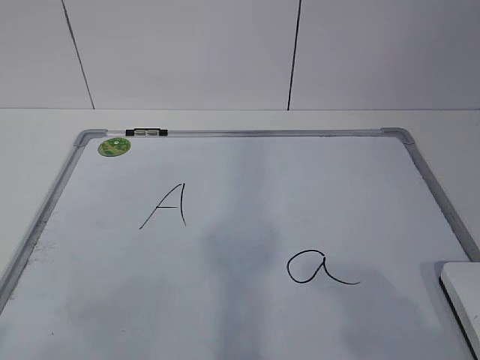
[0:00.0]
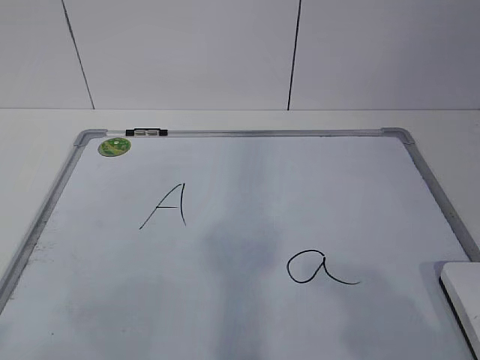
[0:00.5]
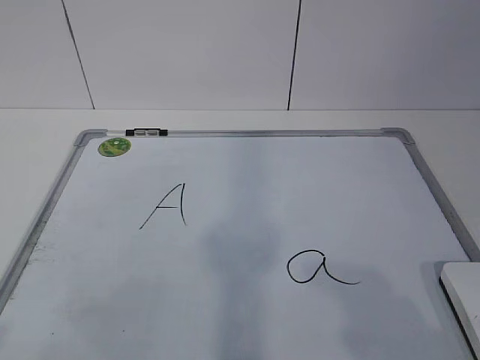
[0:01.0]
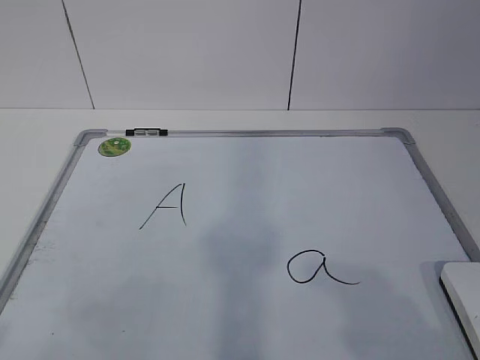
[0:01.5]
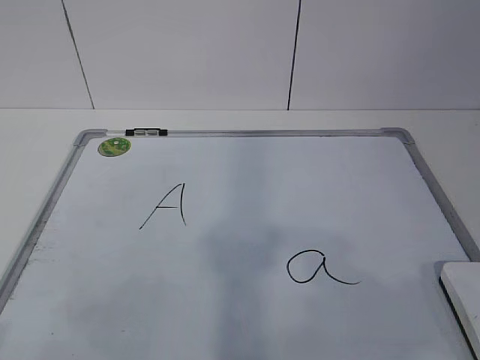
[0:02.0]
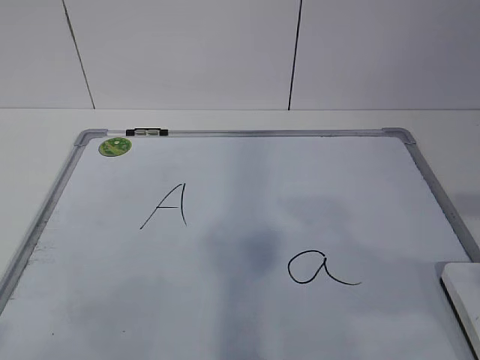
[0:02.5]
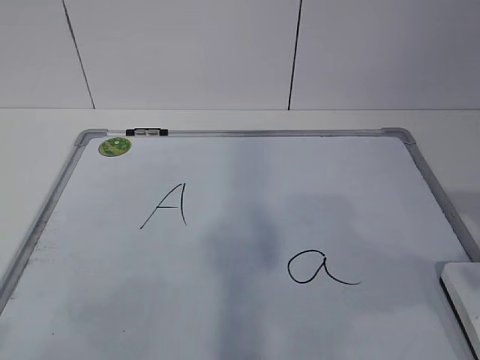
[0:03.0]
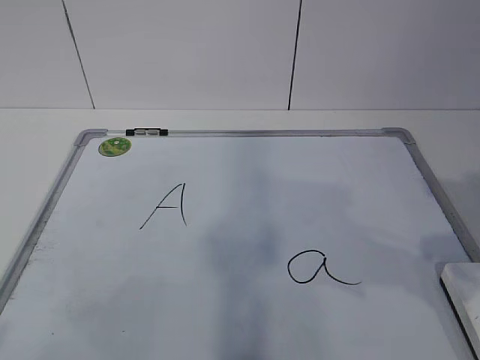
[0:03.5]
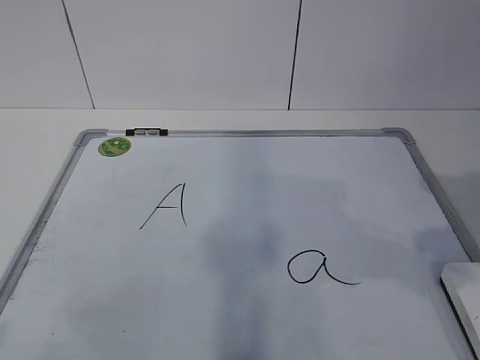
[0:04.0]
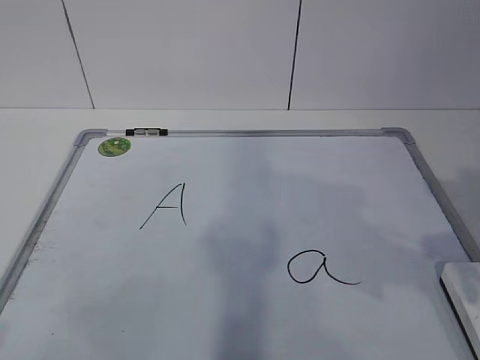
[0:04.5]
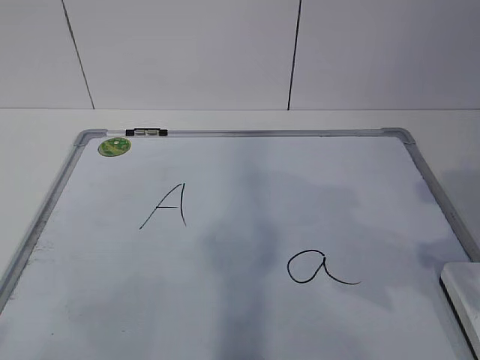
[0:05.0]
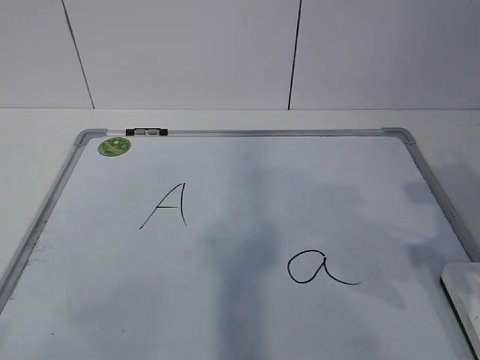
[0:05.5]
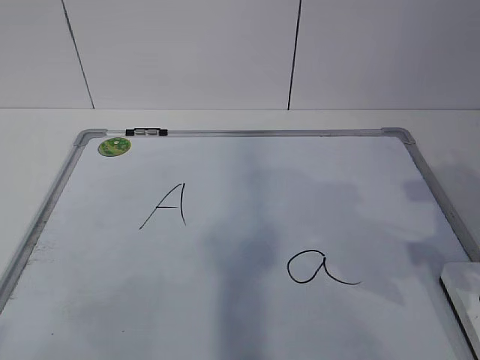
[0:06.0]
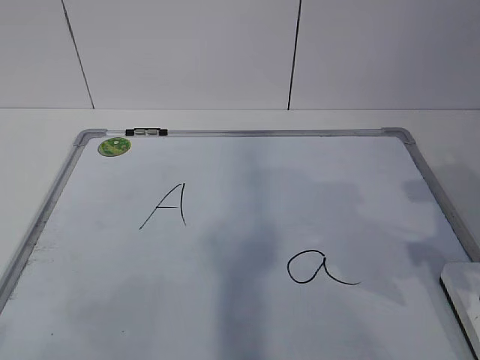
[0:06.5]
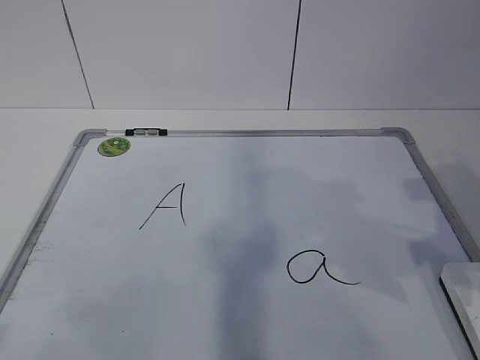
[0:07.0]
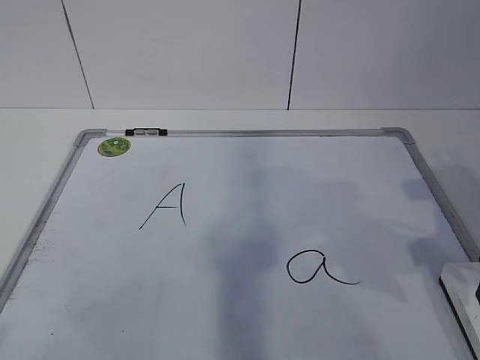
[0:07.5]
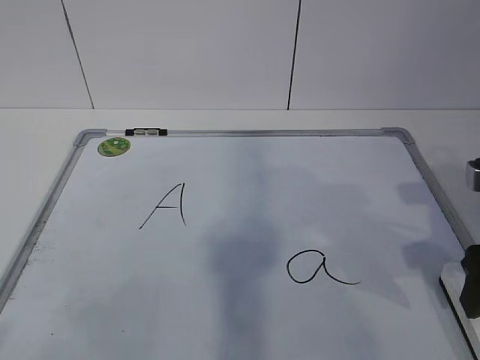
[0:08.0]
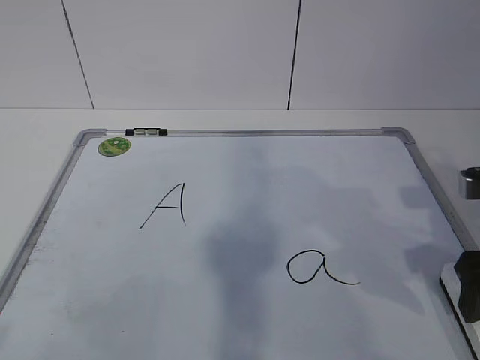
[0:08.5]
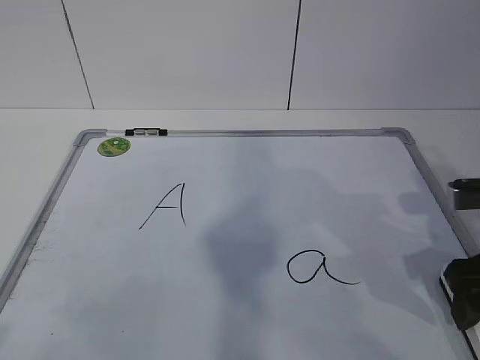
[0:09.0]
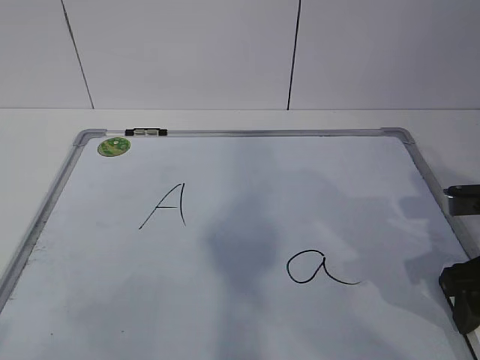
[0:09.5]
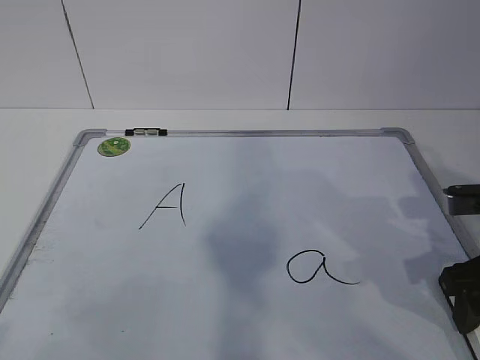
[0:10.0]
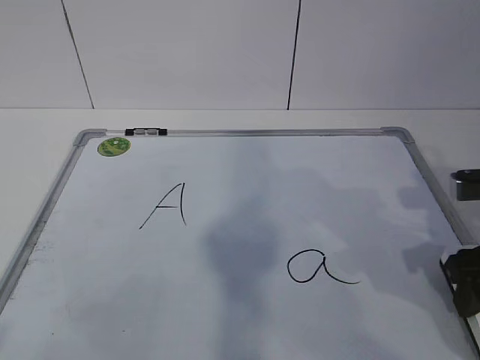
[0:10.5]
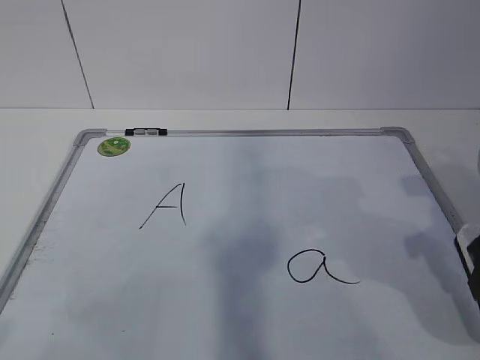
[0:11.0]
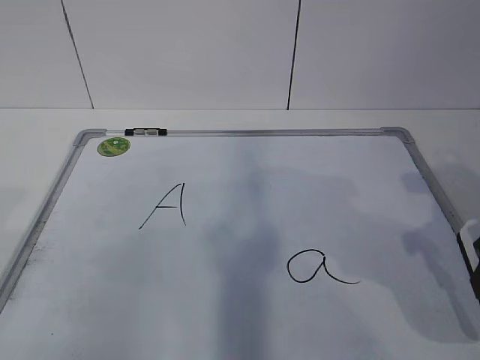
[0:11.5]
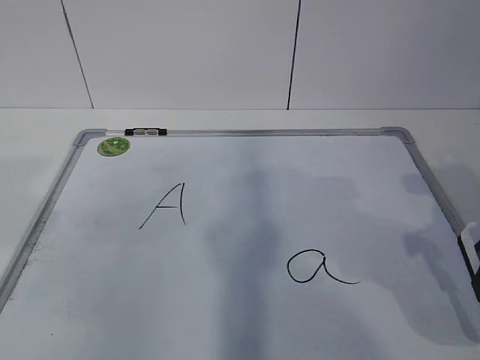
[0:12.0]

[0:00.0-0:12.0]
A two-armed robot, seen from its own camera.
Task of the whole recording: pick up the eraser on the blackboard and erase the letter "a".
Step, 0:08.0 to 0:11.5: Hold the drawing board steady with your left hand.
0:02.0 to 0:04.0: The right gripper heads forward, covering about 15 cm.
0:06.0 to 0:08.0: The right gripper opens.
0:08.0 to 0:10.0: The right gripper closes its fingers.
0:10.0 to 0:12.0: The right gripper goes approximately 5 cm upward.

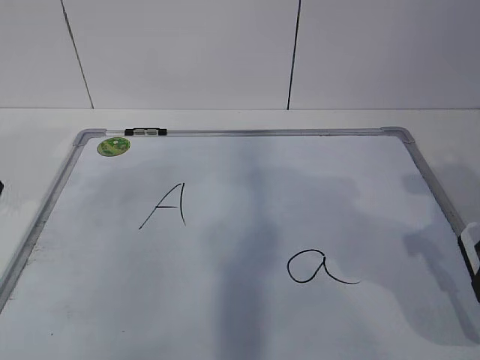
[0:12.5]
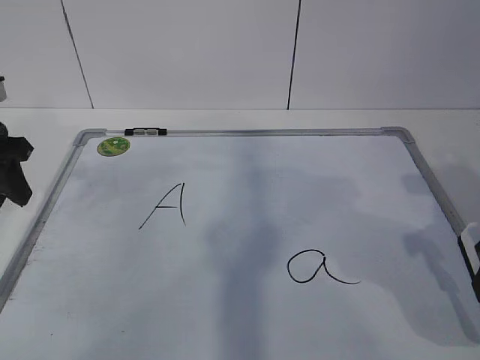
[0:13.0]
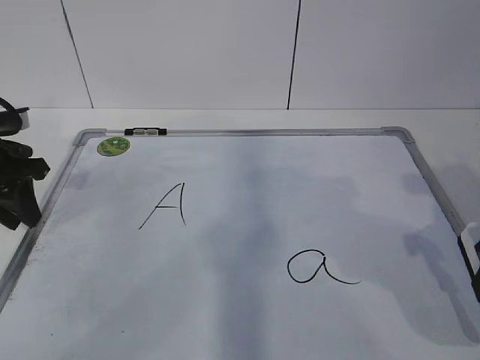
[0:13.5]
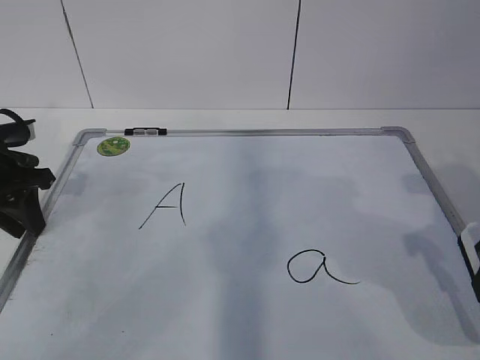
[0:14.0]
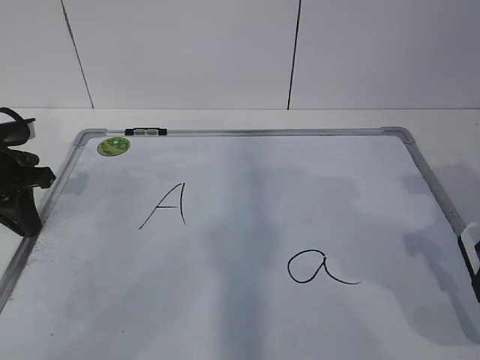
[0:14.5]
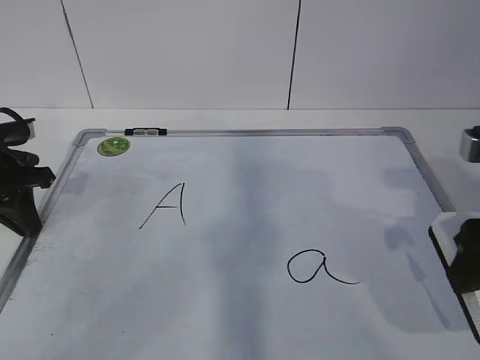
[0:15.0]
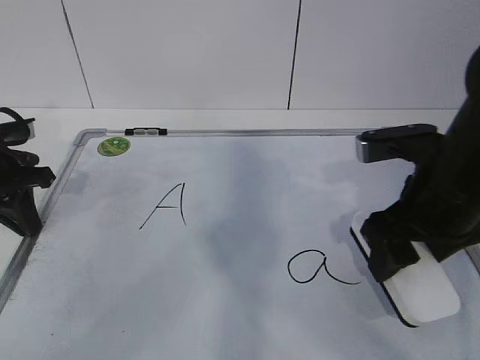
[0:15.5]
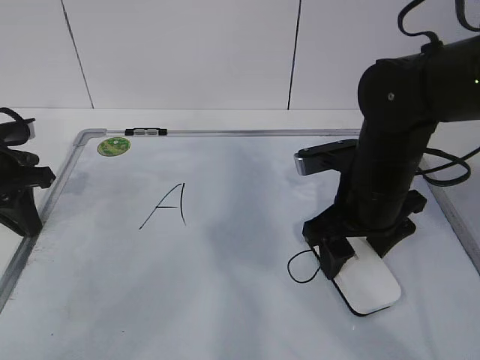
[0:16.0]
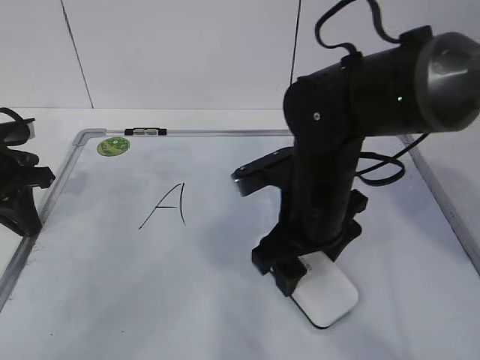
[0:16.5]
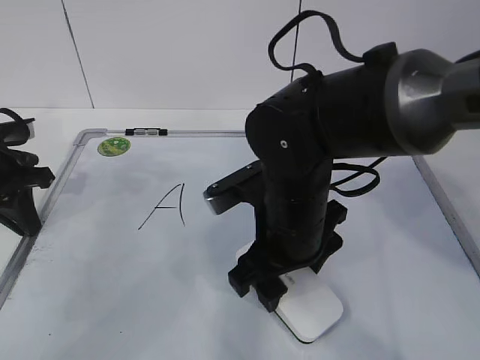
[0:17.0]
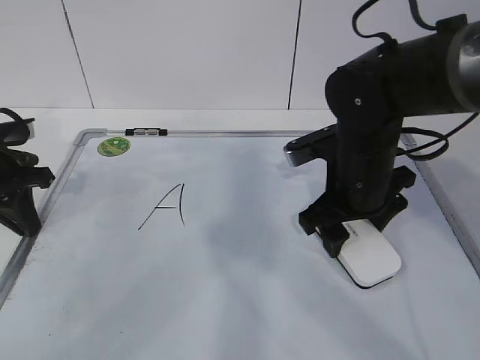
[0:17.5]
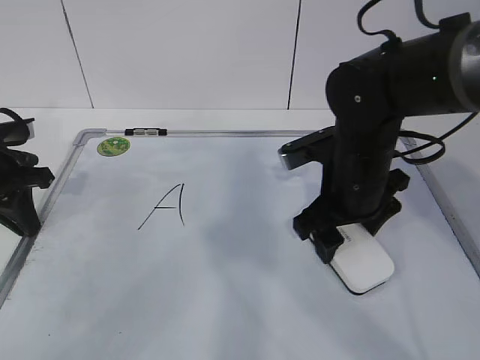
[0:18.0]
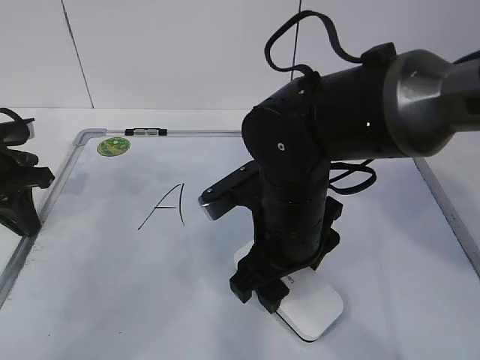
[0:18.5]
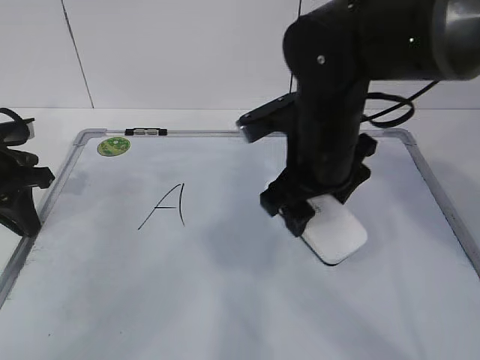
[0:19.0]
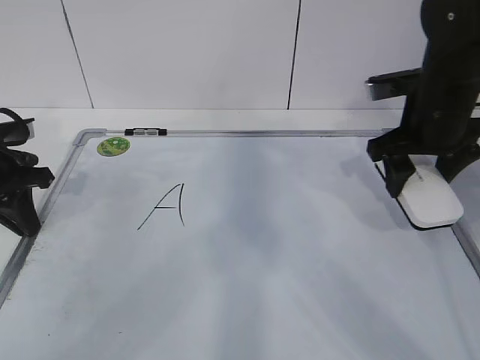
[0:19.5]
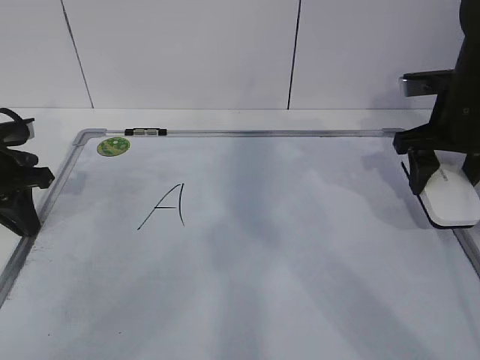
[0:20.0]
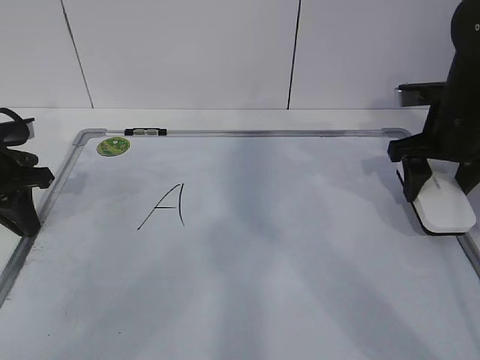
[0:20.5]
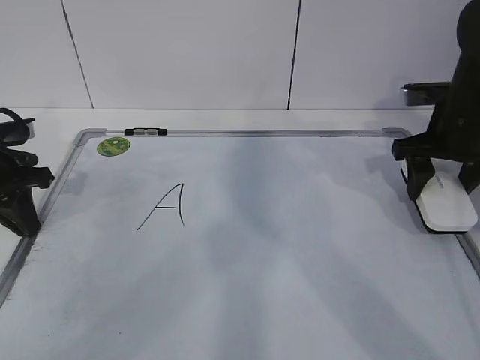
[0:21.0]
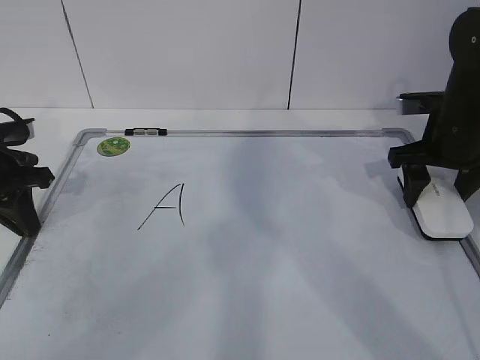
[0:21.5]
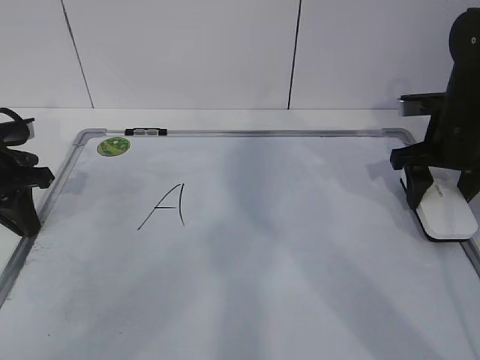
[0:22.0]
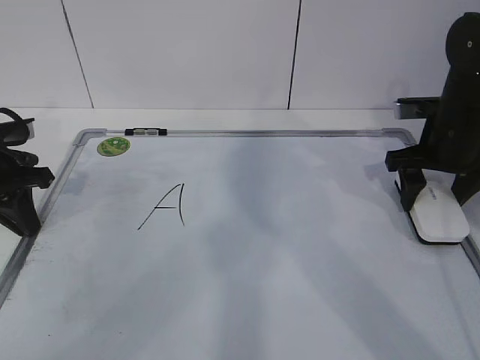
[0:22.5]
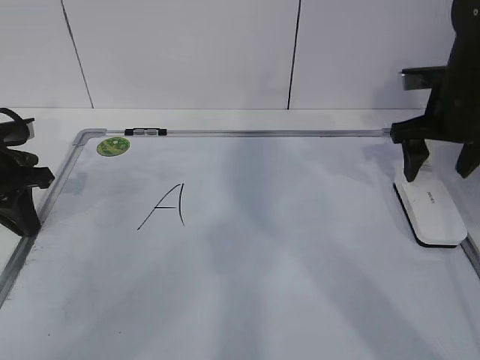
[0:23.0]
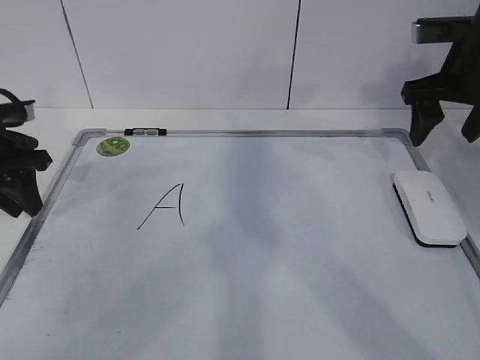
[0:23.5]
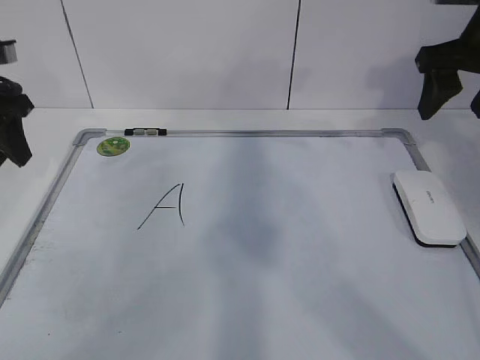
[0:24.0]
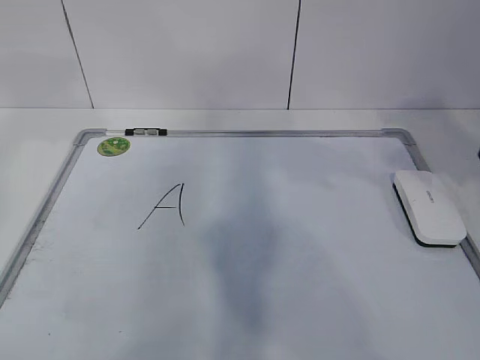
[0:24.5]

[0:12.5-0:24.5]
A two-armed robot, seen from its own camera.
Task of the whole recording: pick up the eraser on the blackboard and erase the letter "a".
Step, 0:15.5 to 0:18.5: Put down the eraser with your right hand.
0:12.5 to 0:14.5: The left gripper goes some 15 cm downward and forward, and closes.
0:14.5 to 0:16.5: The right gripper moves to the left and forward, some 20 cm.
0:16.5 to 0:18.5: The right gripper travels to the right and back again, roughly 5 cm each way.
0:18.5 to 0:20.5: The right gripper shifts some 25 cm to the right and forward.
0:20.5 to 0:22.5: The grippers move only a little.
0:22.5 to 0:24.5: The left gripper heads upward, covering some 20 cm, and opens its fingers; the right gripper moves upward and backward, approximately 20 cm, and opens, then closes again.

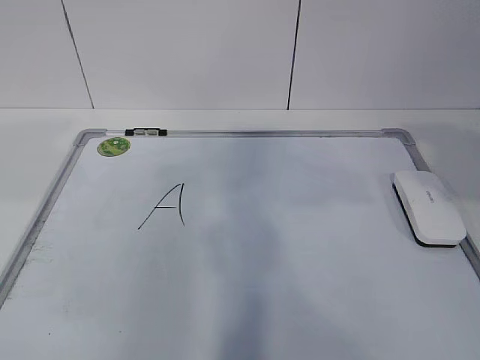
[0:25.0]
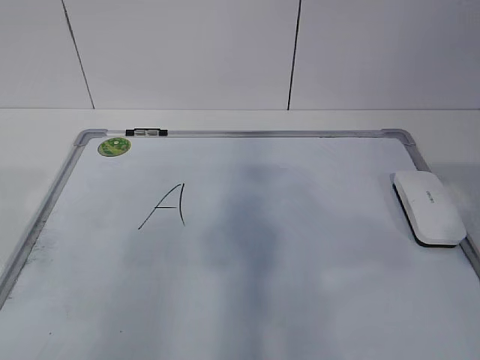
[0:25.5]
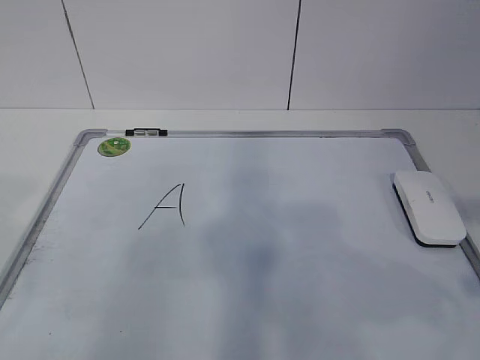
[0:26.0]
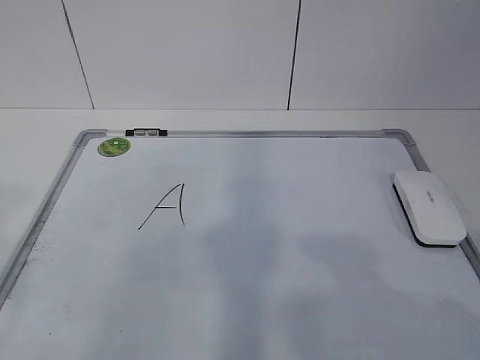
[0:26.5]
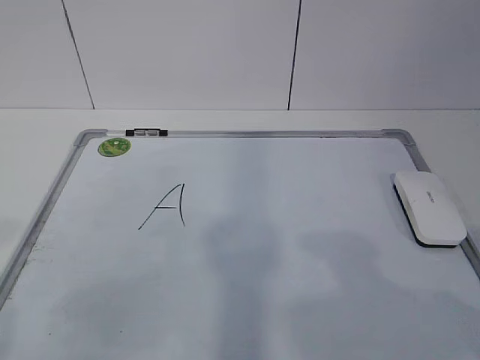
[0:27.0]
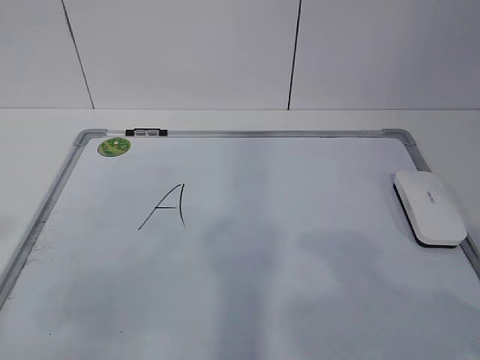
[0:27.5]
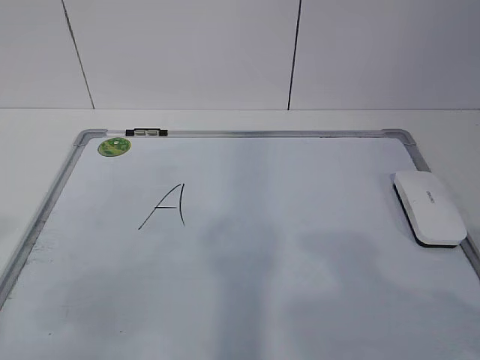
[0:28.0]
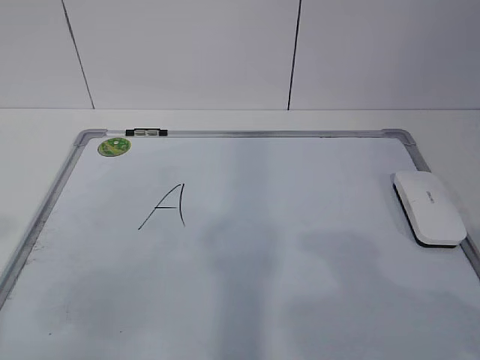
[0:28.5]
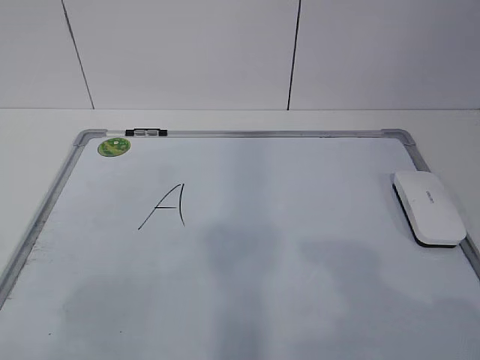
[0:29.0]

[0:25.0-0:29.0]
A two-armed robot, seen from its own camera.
Task of the whole recording: pick up the eraser on the blackboard and erase the letter "a".
0:25.0 to 0:27.0: The grippers both shift backward and downward by approximately 15 cm.
